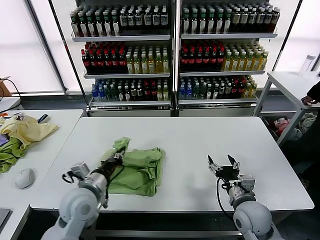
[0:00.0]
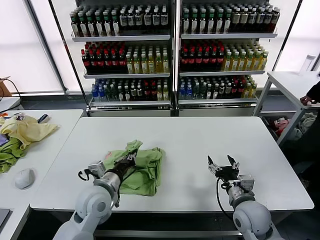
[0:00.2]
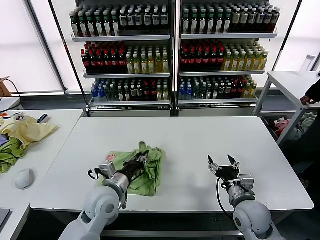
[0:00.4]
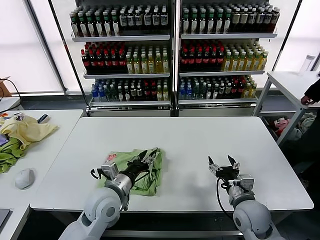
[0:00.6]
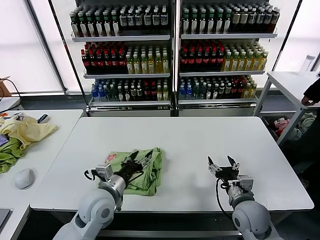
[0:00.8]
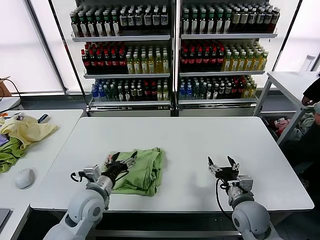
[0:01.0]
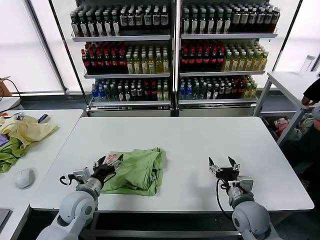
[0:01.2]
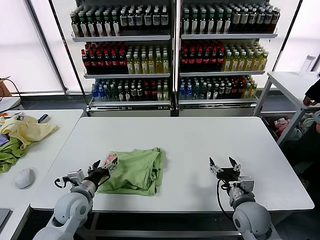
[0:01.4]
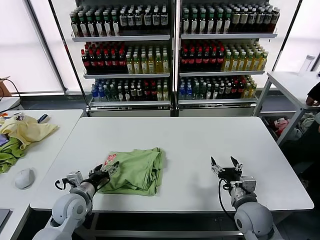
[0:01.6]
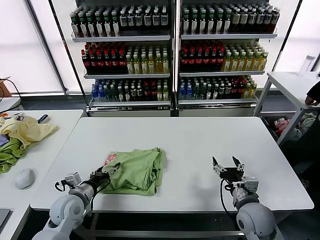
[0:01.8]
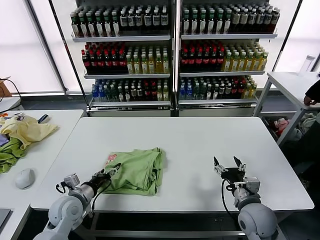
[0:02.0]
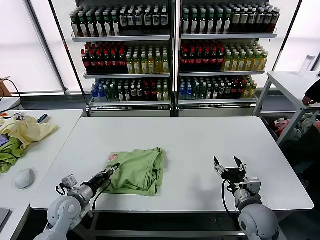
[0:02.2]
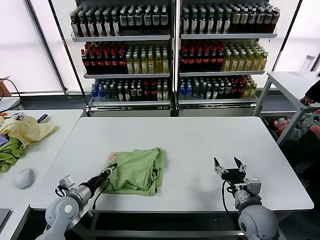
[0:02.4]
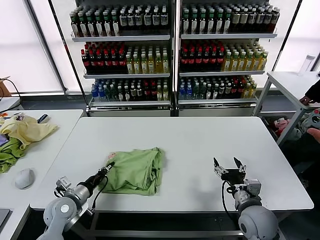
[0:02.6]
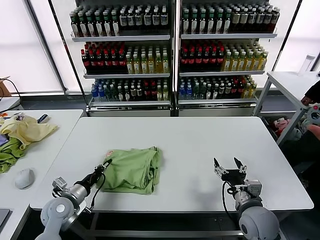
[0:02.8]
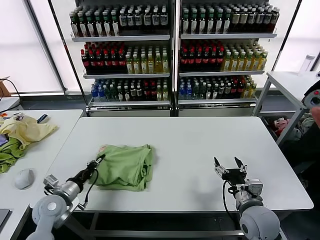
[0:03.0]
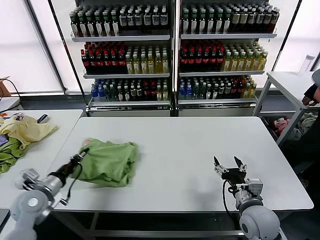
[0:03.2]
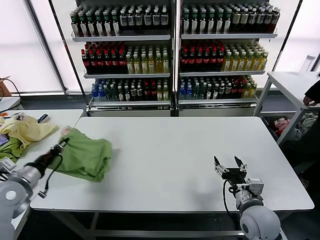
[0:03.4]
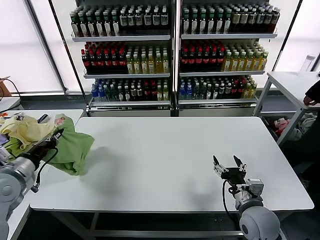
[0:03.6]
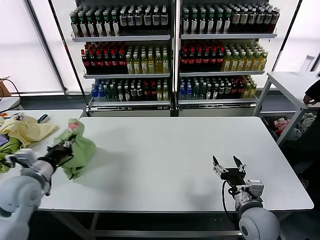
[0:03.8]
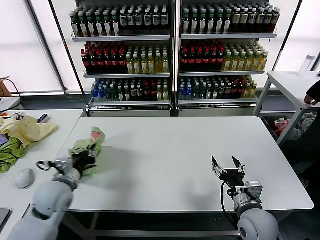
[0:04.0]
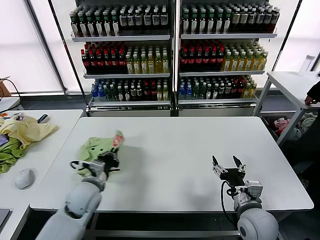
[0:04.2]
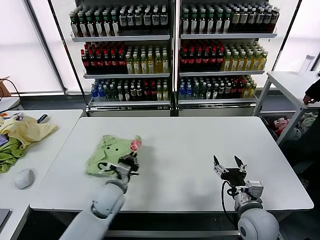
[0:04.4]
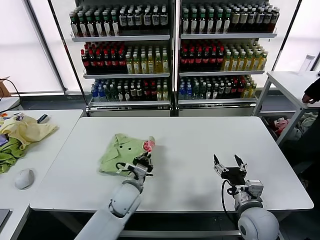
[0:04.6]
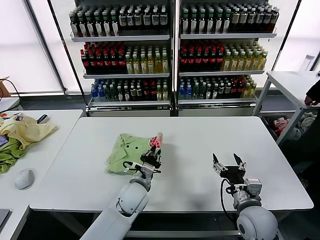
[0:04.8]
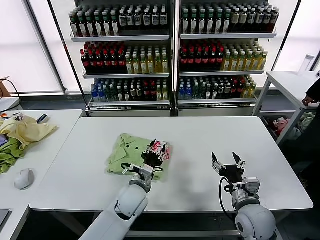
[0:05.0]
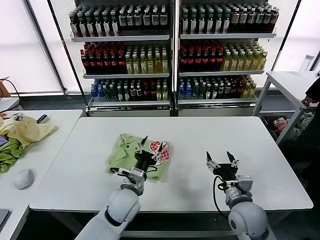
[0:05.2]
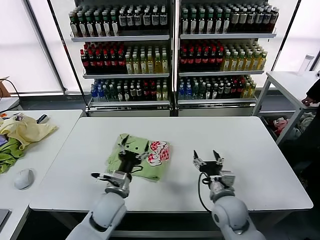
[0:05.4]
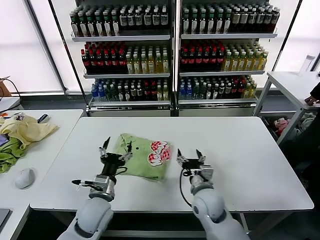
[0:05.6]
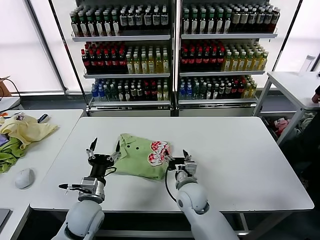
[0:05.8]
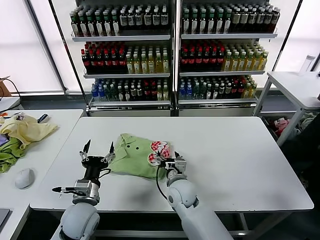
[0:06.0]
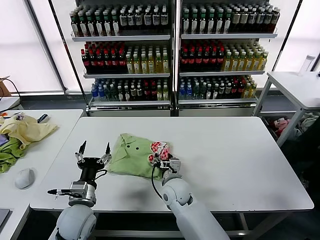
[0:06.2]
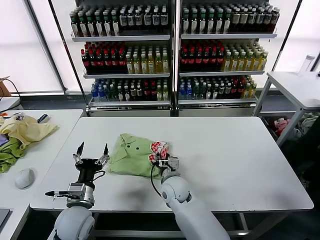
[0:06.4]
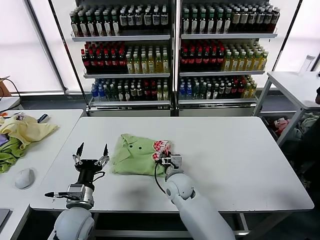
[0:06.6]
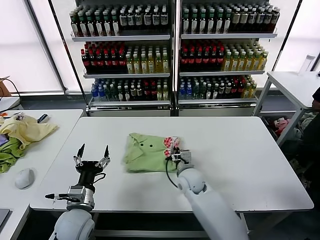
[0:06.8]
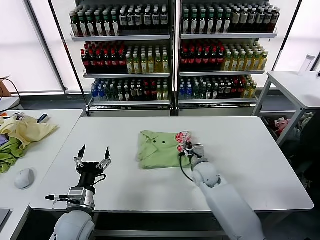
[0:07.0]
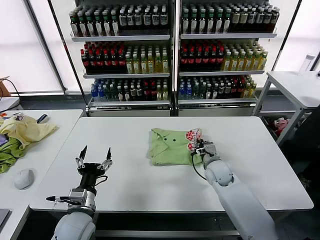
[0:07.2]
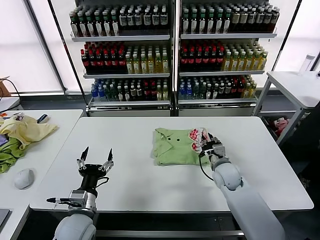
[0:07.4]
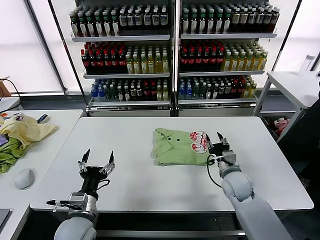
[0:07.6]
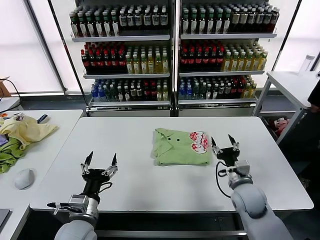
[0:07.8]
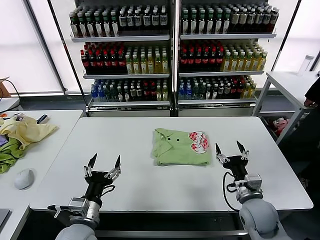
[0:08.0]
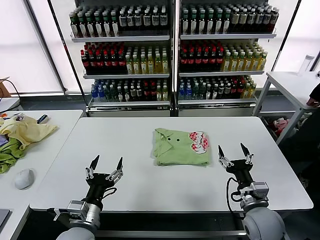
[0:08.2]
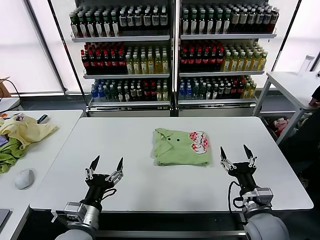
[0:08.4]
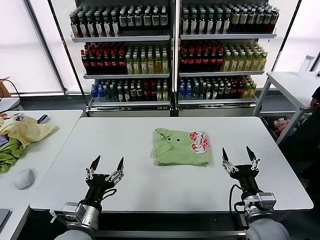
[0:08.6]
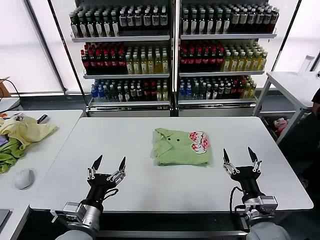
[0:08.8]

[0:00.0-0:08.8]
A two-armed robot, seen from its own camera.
Task of the whole recording: fold and organize the clothes.
Step, 0:00.8 to 0:05.0: Flip the folded clothes over with left gripper.
Step, 0:05.2 to 0:07.4: Drag the clothes to the center of the table.
0:00.0 to 0:01.4: The left gripper travels downward by approximately 5 cm, and opens.
0:01.4 to 0:03.0: The left gripper shifts some 5 cm to the left, and closes its fingers.
0:03.0 to 0:04.4: The left gripper shifts roughly 15 cm to the right.
0:04.4 to 0:05.8: The left gripper travels backward by approximately 5 cm, moves approximately 10 cm to the right and comes back, and opens; the right gripper moves to the left and forward, about 20 cm.
0:05.8 to 0:07.4: The right gripper moves to the right and forward, roughly 15 cm, and closes up.
0:07.4 to 0:08.8: The left gripper shifts some 5 cm backward, while the right gripper moves backward, some 20 cm, and opens its fingers.
